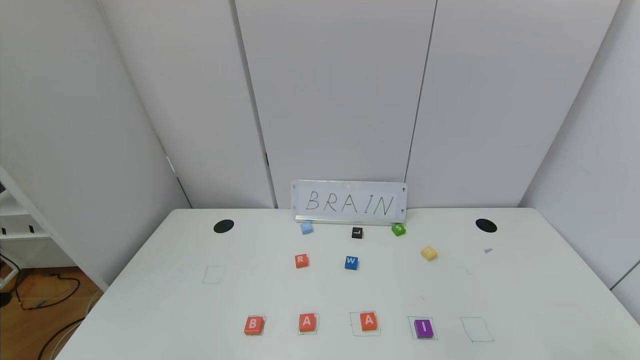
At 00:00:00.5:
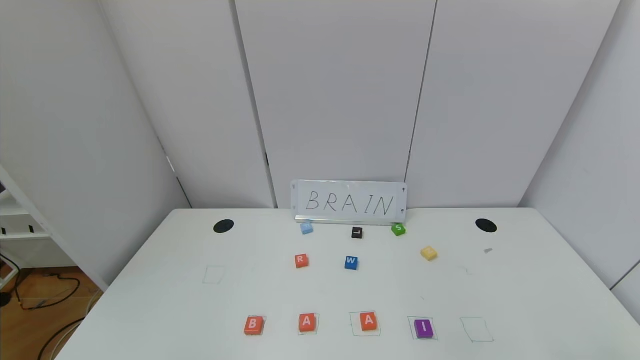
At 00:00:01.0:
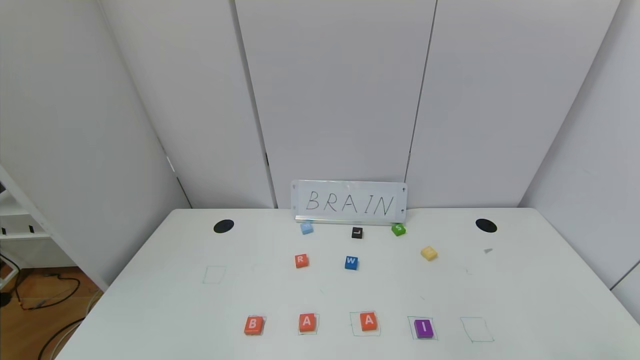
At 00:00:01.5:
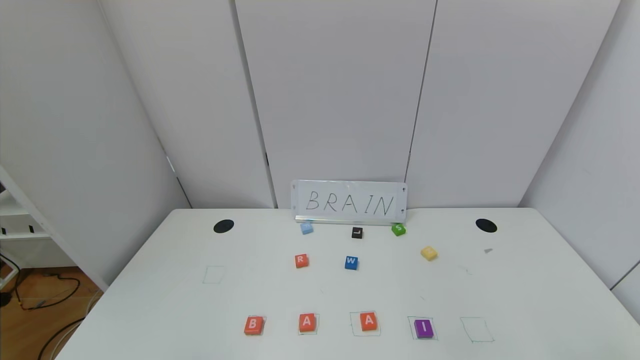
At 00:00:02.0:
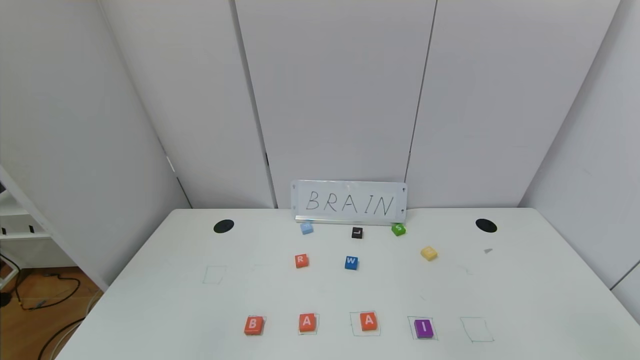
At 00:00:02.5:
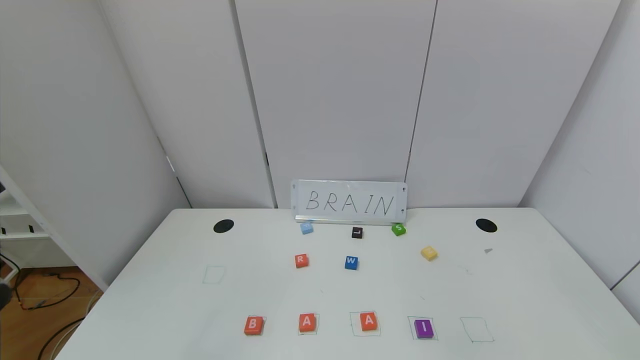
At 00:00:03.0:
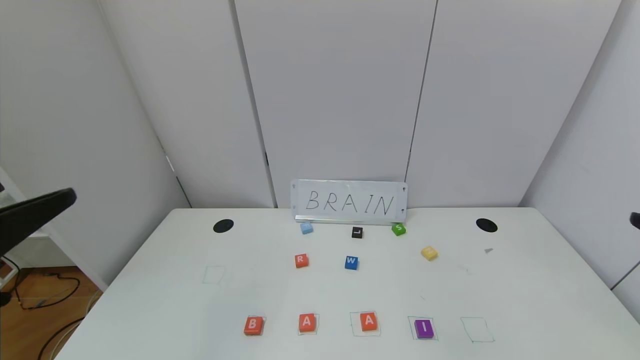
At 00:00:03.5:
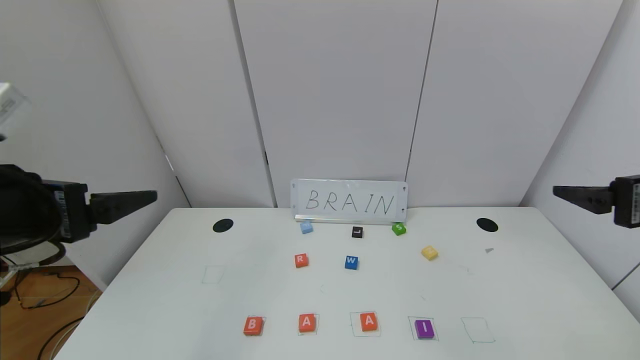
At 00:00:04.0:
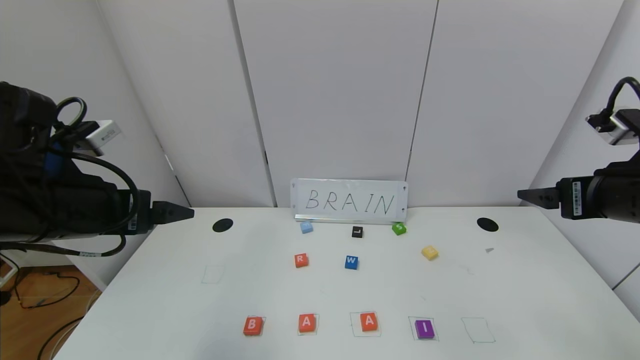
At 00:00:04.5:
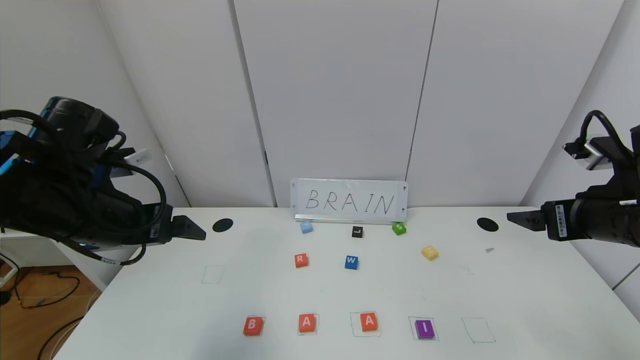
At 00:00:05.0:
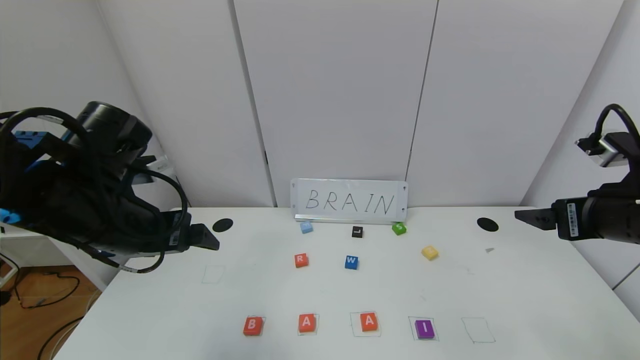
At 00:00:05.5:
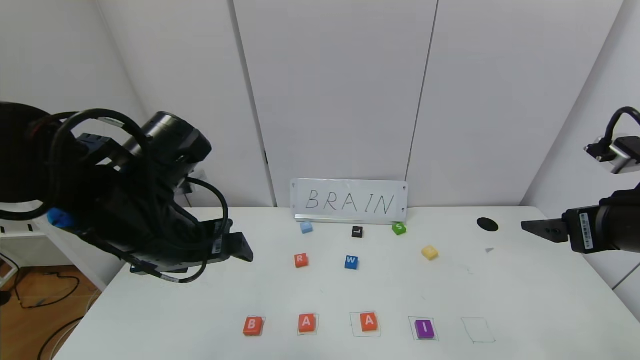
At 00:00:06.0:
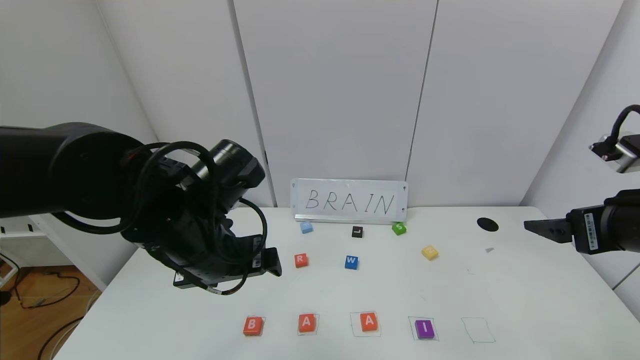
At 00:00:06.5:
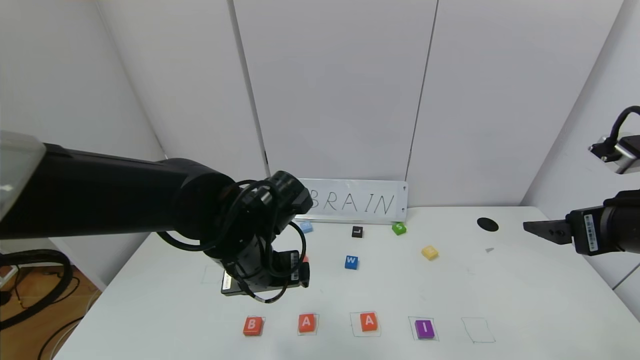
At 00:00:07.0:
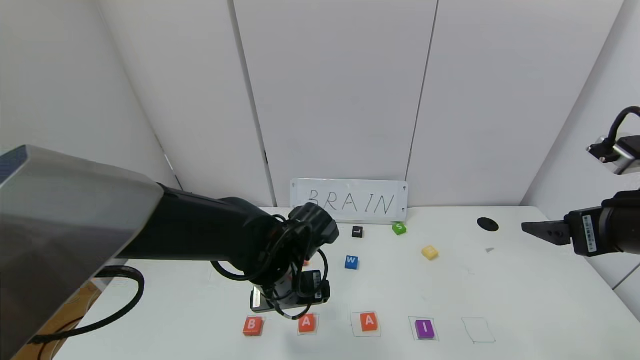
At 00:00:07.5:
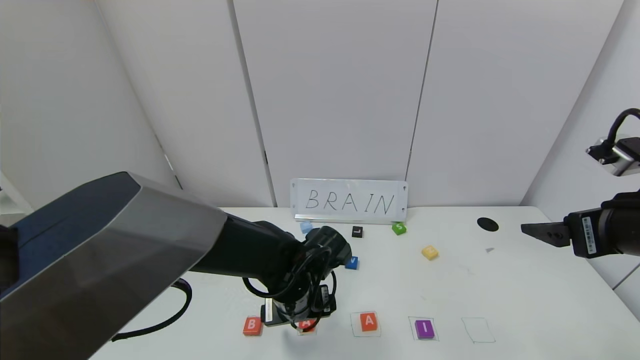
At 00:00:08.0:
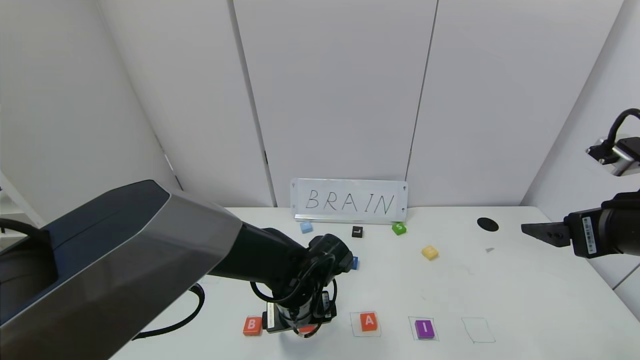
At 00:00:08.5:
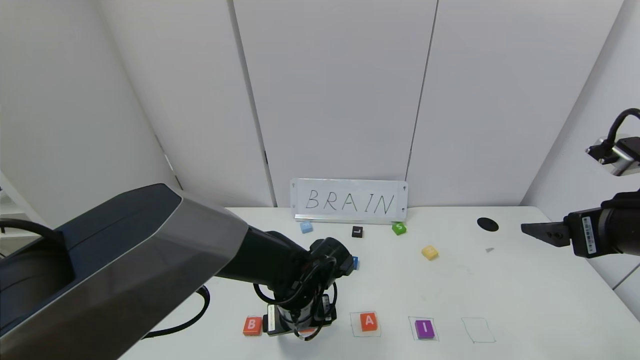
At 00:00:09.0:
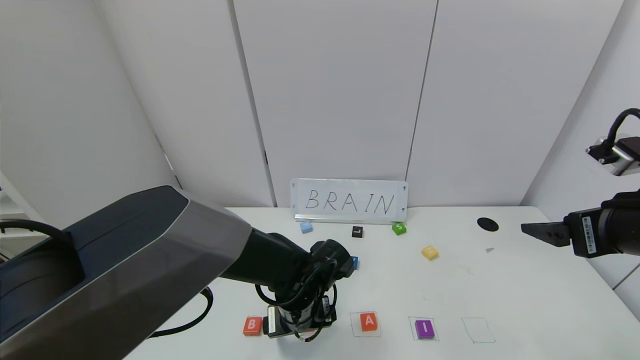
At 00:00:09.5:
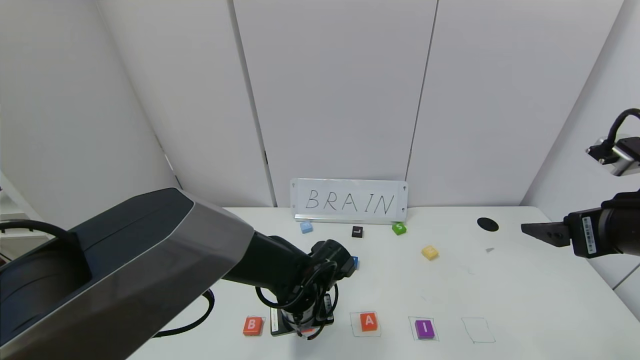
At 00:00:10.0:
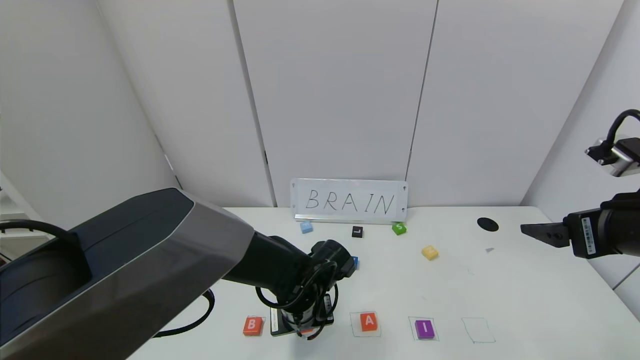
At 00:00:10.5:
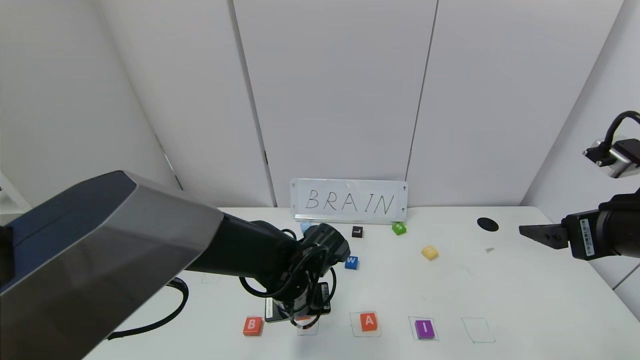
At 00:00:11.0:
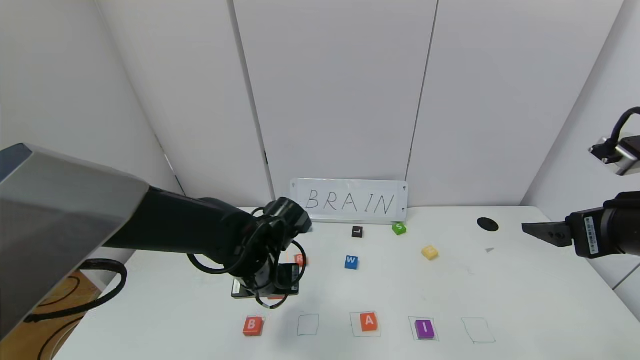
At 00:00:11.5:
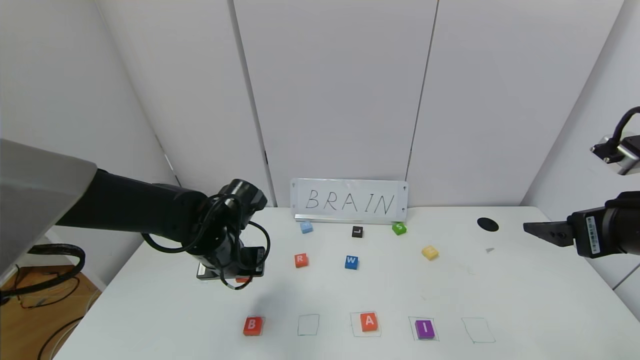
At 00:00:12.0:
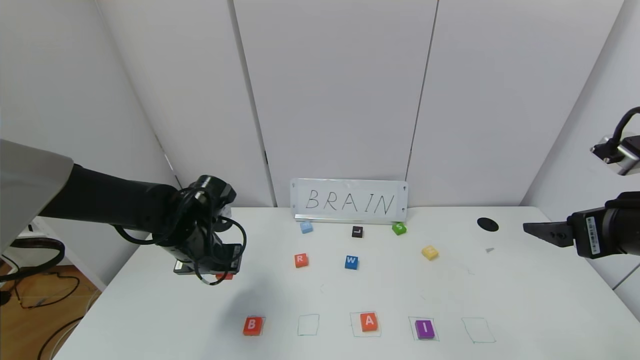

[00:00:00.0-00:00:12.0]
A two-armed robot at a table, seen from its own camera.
Task of the whole recording: use the gripper to find blocks with the letters b, a, a, and i on the table and arrange them into BAAI, then find r and N and turn the arranged baai into brian.
00:00:02.0 to 00:00:04.0: Both grippers move forward, some 25 cm.
00:00:04.0 to 00:00:06.0: The left gripper moves to the right, roughly 15 cm.
00:00:06.0 to 00:00:08.0: The left gripper goes some 20 cm downward and to the right.
00:00:08.0 to 00:00:10.0: The left gripper closes up.
00:00:10.0 to 00:00:12.0: The left gripper travels to the left and upward by approximately 20 cm.

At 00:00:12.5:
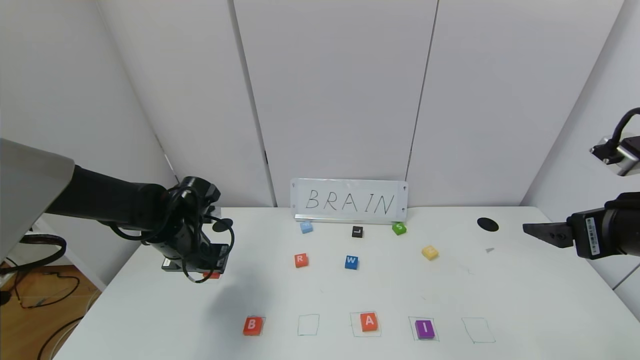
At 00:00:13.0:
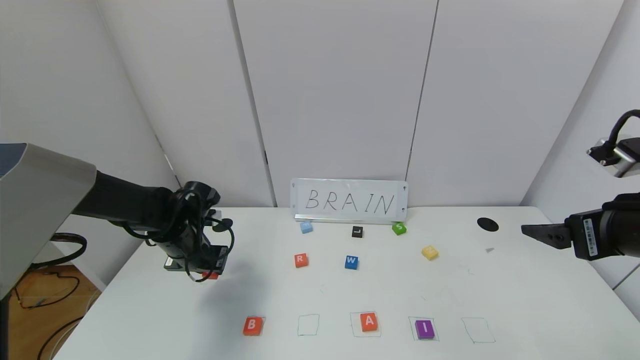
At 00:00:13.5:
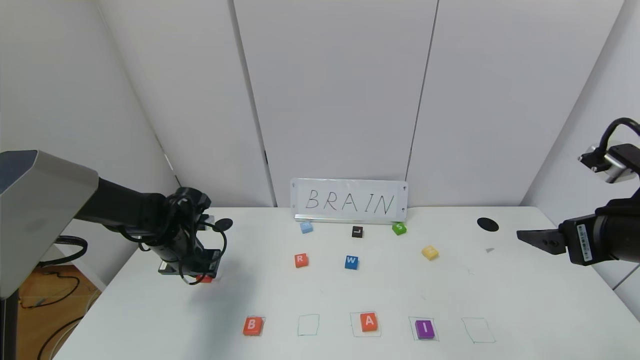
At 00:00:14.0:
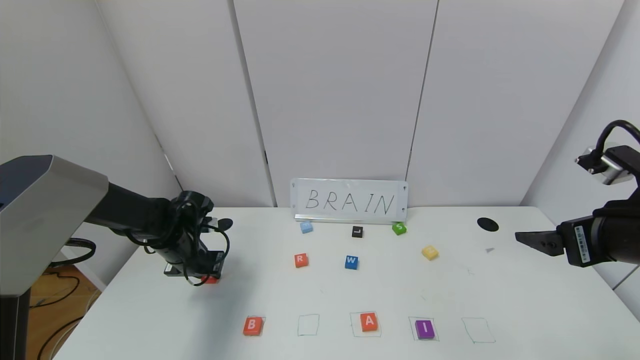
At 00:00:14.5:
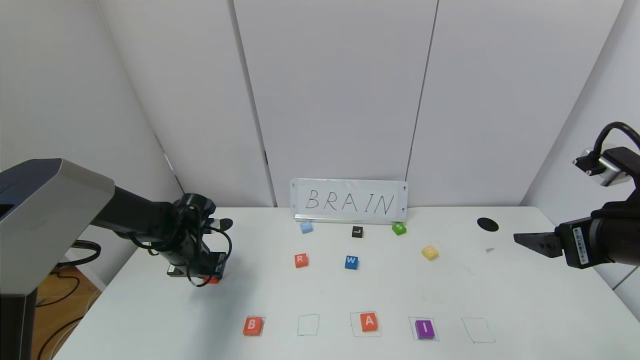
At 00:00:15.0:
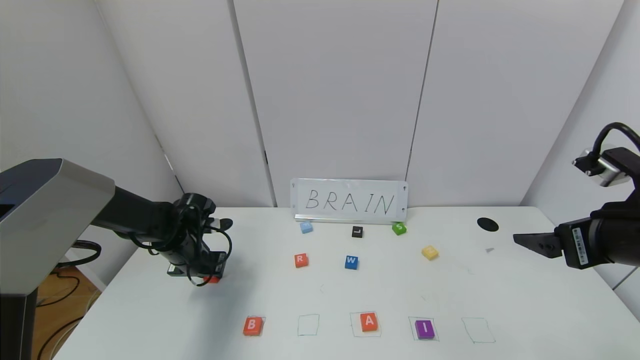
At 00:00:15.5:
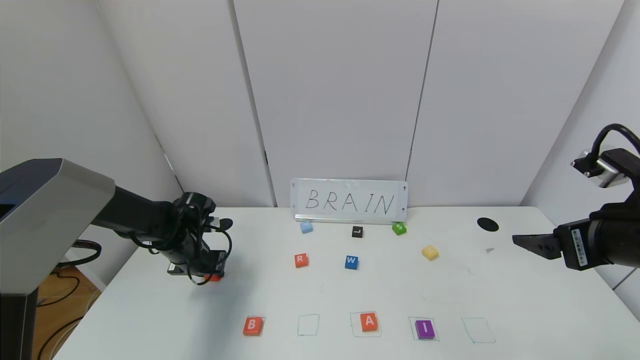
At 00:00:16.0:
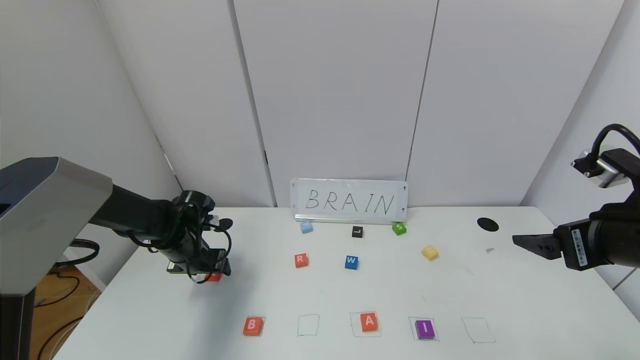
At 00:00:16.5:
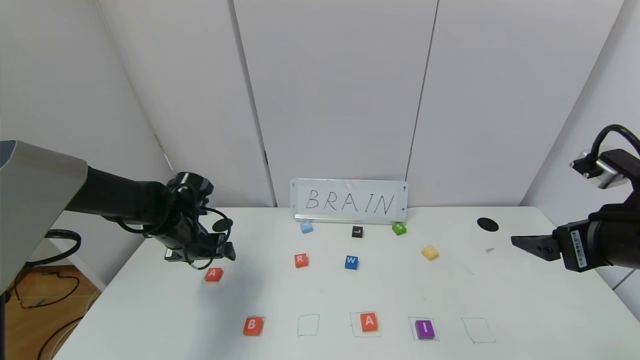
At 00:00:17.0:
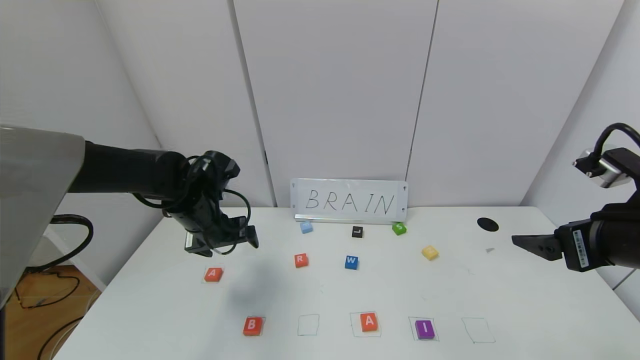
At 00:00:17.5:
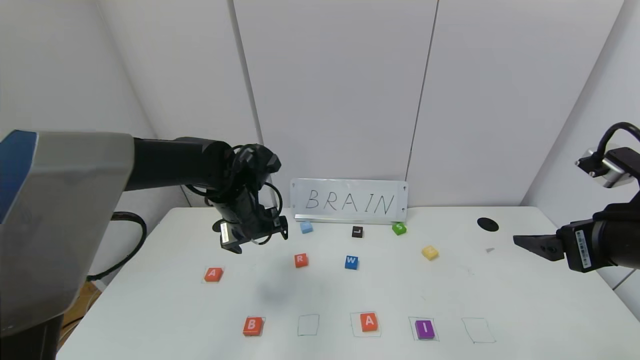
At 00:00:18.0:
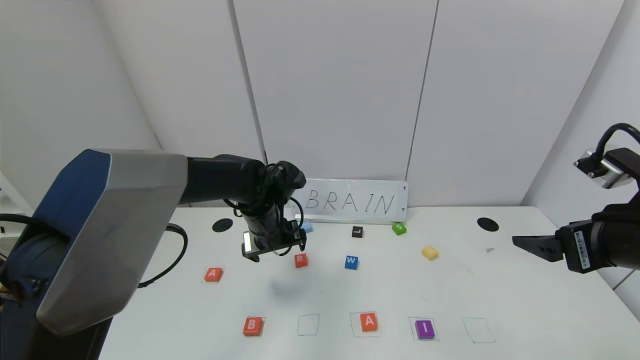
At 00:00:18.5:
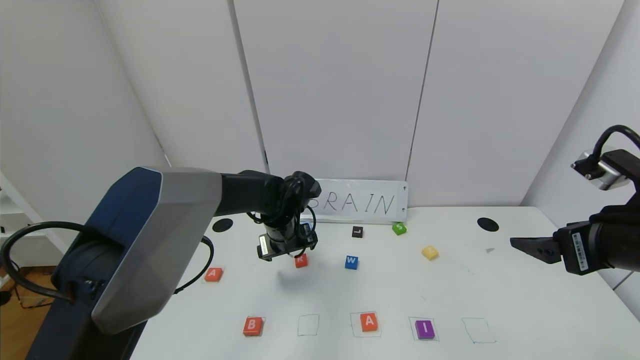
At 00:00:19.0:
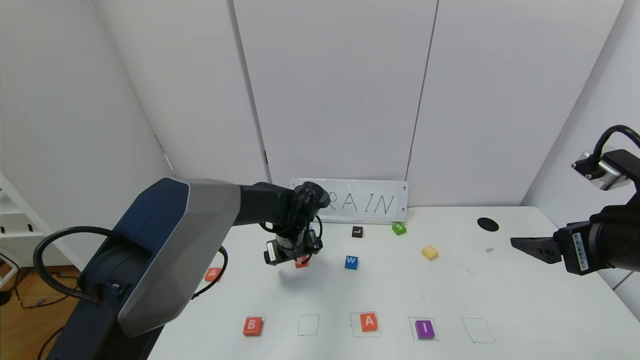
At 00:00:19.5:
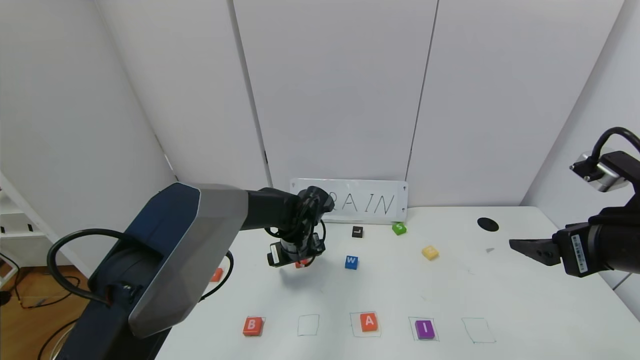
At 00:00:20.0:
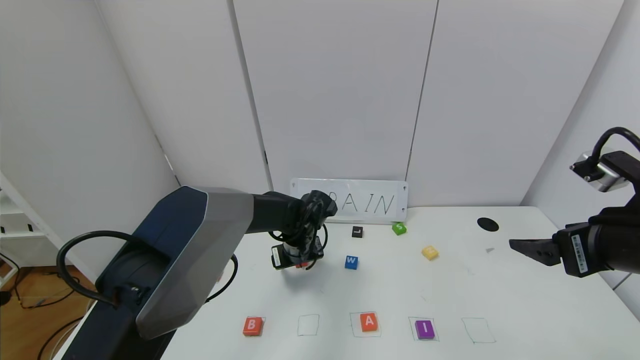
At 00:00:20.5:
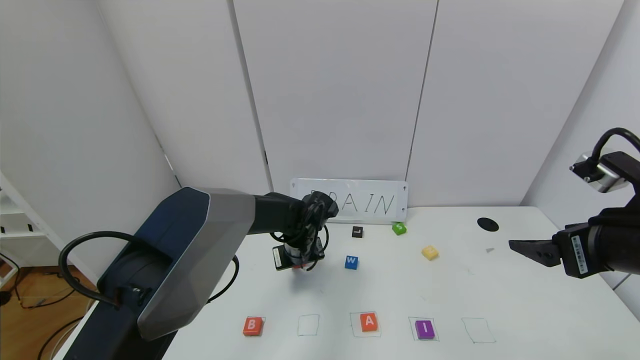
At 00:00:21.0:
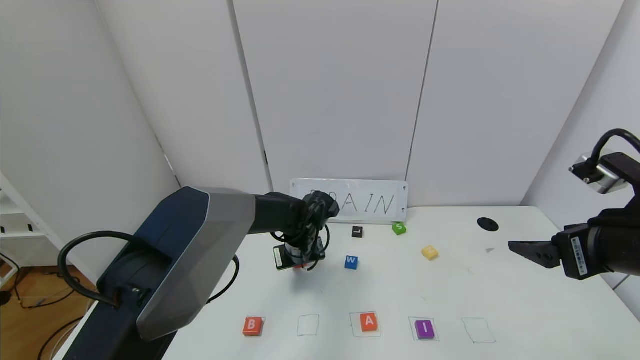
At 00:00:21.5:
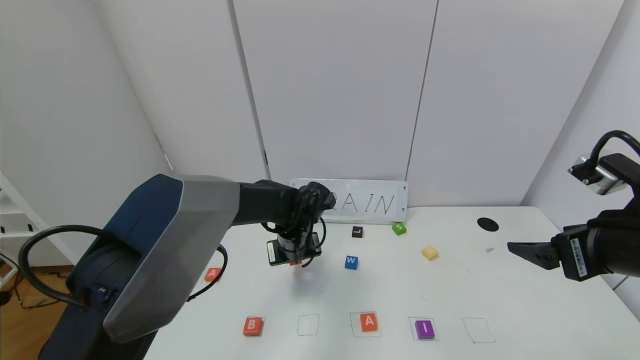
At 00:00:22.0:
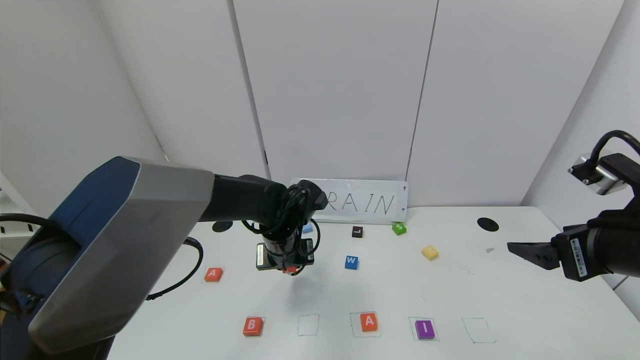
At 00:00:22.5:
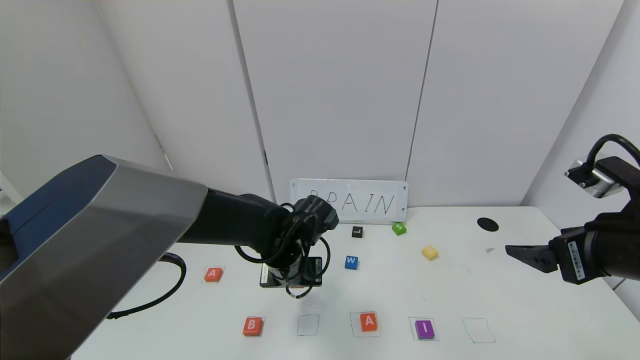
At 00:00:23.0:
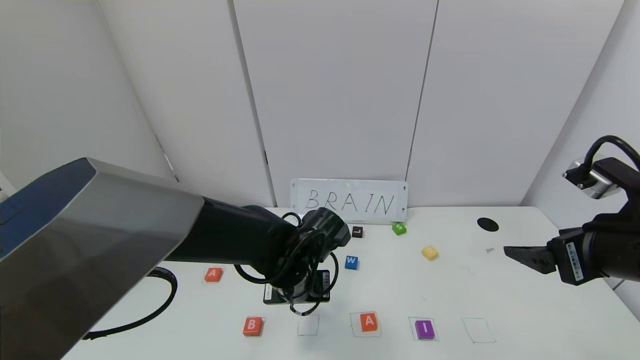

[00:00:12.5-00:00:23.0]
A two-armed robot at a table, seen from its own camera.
Task of the whole recording: use the gripper to find blocks with the letters b, a, a, and i on the table and arrange them into BAAI, then find r and N and turn the arranged baai into brian.
Step, 00:00:12.5 to 00:00:15.5: Move the block A out of the second location.
00:00:12.5 to 00:00:14.5: The left gripper goes roughly 5 cm downward.
00:00:14.5 to 00:00:16.5: The left gripper changes place by roughly 5 cm, and opens.
00:00:16.5 to 00:00:19.0: The left gripper shifts some 20 cm to the right.
00:00:19.0 to 00:00:21.0: The left gripper closes its fingers.
00:00:21.0 to 00:00:23.0: The left gripper travels backward by about 10 cm.
